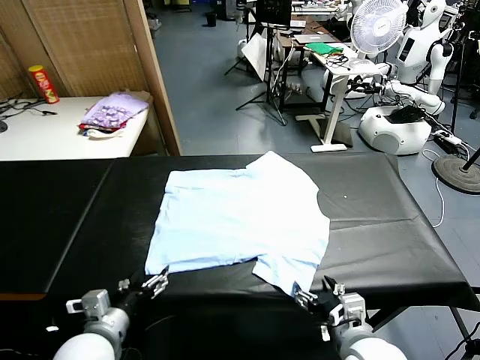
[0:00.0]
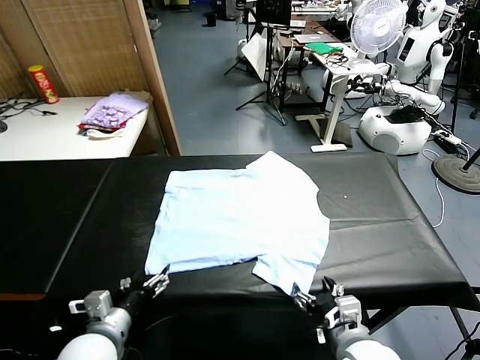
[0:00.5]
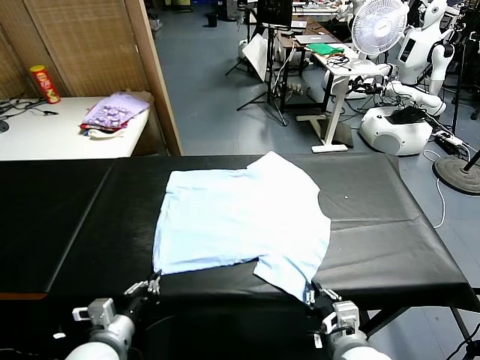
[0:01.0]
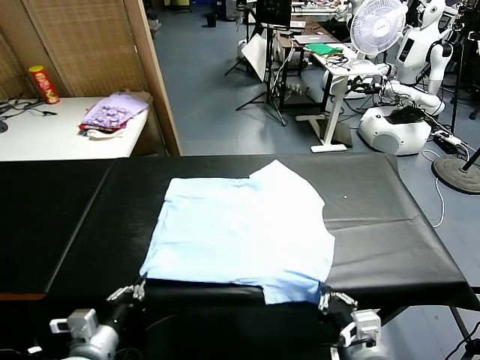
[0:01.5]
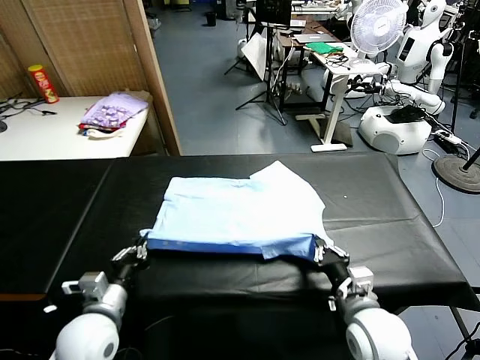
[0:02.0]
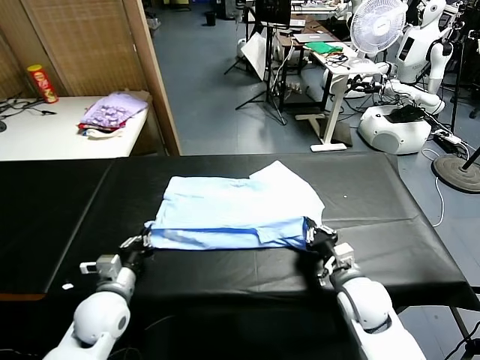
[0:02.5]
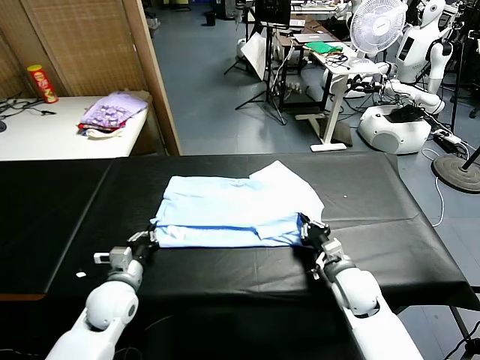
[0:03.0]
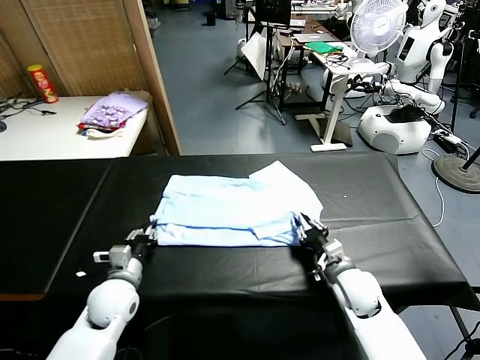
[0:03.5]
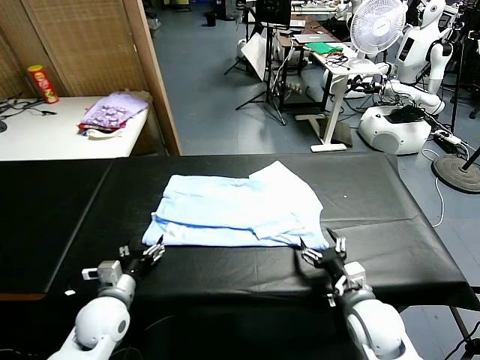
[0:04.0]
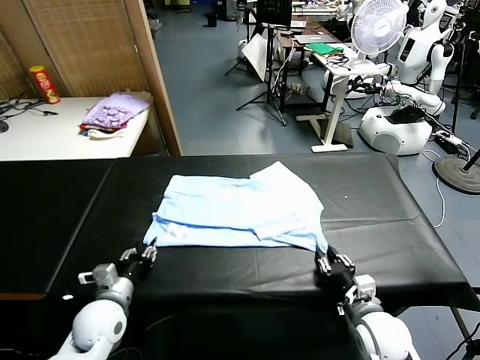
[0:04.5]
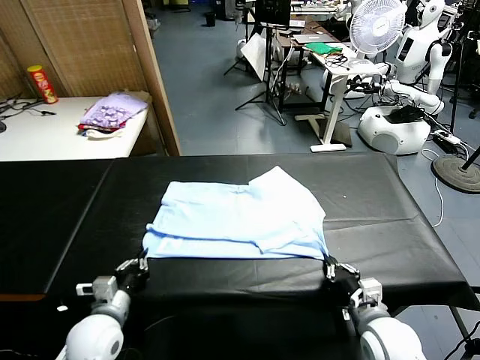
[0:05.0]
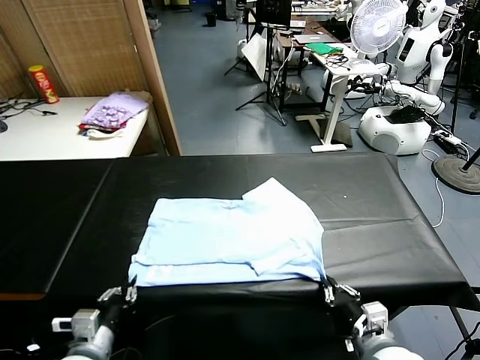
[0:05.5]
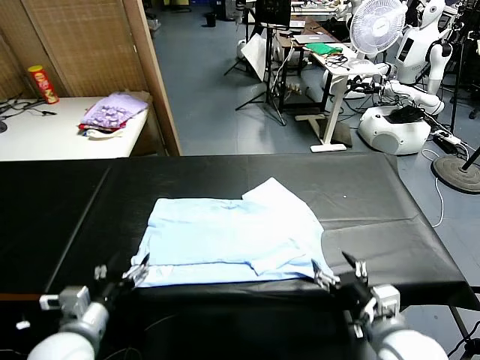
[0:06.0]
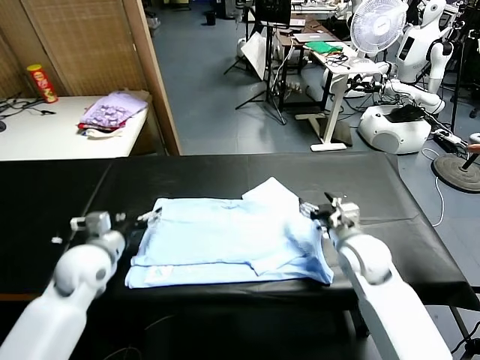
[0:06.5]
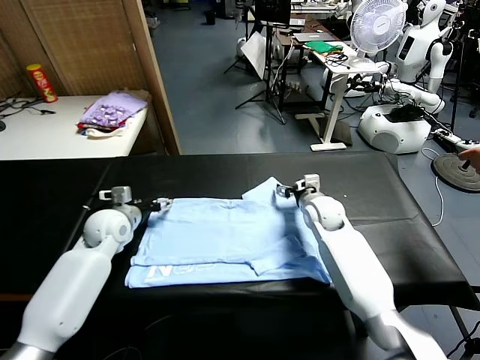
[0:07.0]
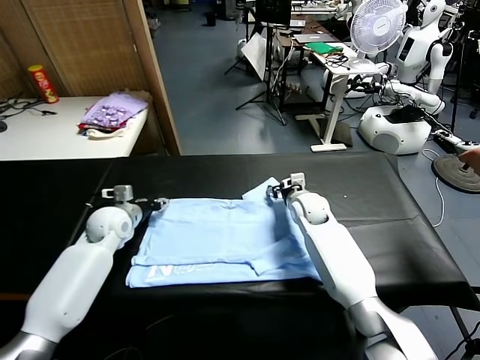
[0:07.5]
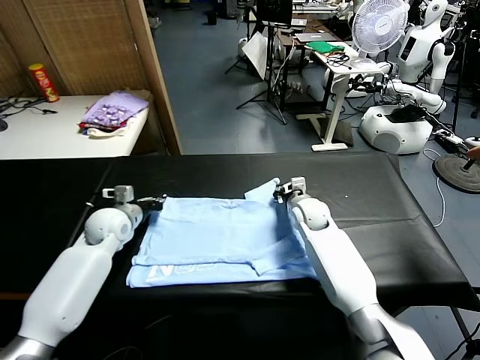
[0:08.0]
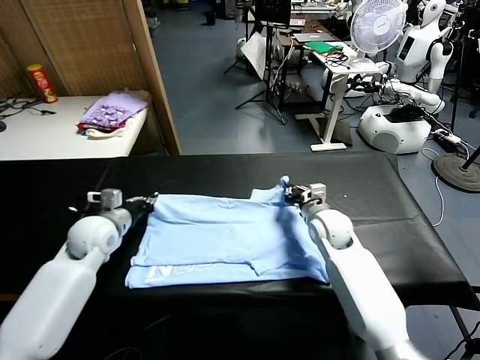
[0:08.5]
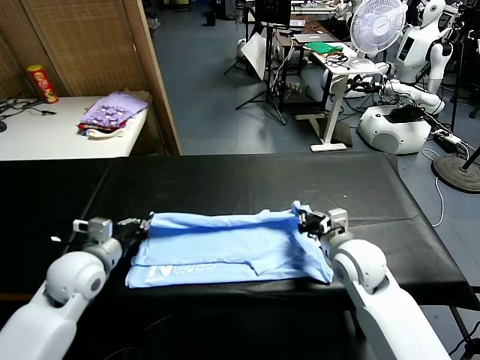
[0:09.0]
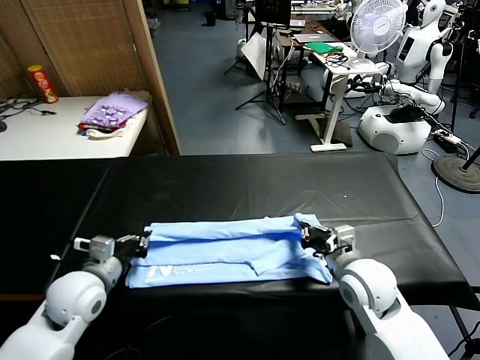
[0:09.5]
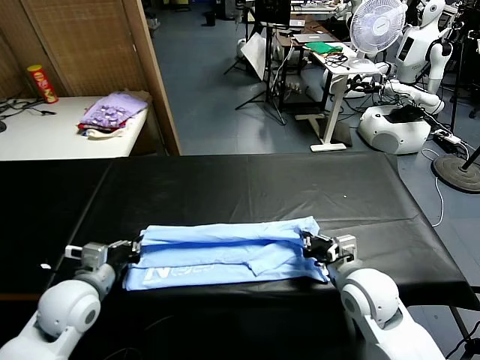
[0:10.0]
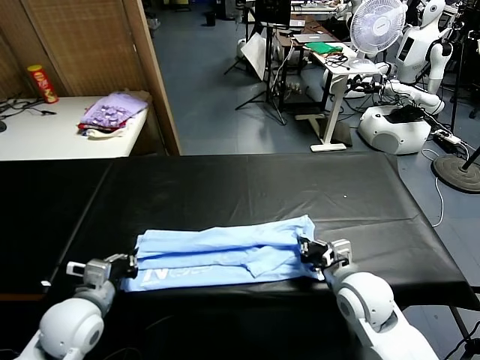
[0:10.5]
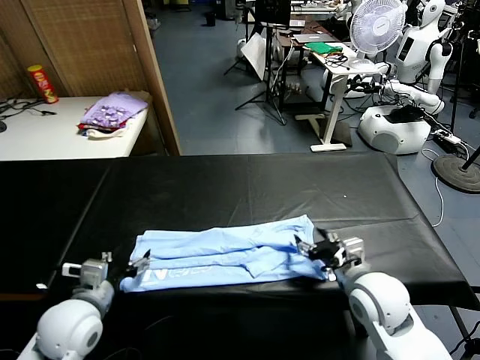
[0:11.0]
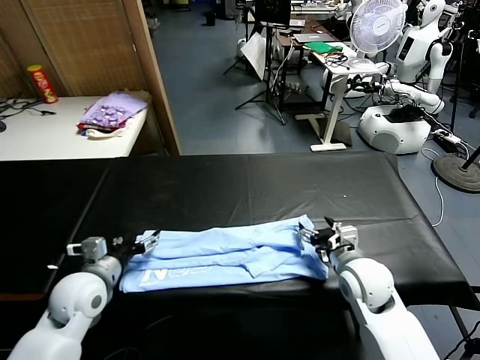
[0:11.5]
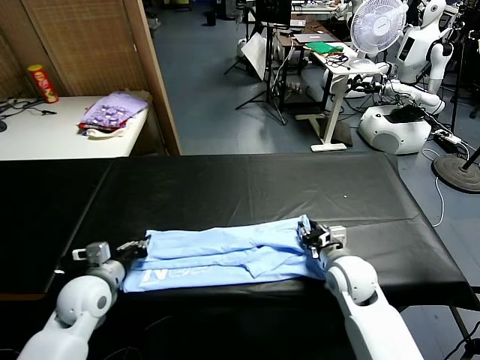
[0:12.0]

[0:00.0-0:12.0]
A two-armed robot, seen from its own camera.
Task of the whole recording: fold and organize the clothes.
Step, 0:00.0 to 0:01.0: use both grippers simultaneously to clamp the lower edge of the clothing fabric.
Step, 0:01.5 to 0:03.5: use both grippers to drag the lower edge of the fabric forward and fold it over the upper edge.
Step, 0:04.0 to 0:05.5: Drag the clothes downward with both gripper.
Step, 0:06.0 to 0:07.5: use both grippers simultaneously to clamp the upper edge of the clothing fabric.
Step, 0:08.0 to 0:10.5: use both grippers to drag the upper edge of the fabric backward and fold it over the lower edge.
0:02.0 to 0:04.0: The right gripper moves some 5 cm, and opens its fingers. Meanwhile the left gripper opens up.
0:04.0 to 0:06.0: The right gripper is displaced upward by some 10 cm, and closes, then opens again. Meanwhile the left gripper goes some 10 cm upward and backward, and closes, then opens again.
0:06.0 to 0:08.0: Both grippers travel together forward, approximately 25 cm. The left gripper closes. The right gripper closes.
0:08.0 to 0:10.0: The grippers both shift backward by approximately 20 cm.
0:10.0 to 0:12.0: The left gripper travels downward by some 5 cm, and opens, then closes once more; the right gripper goes some 10 cm downward and forward, and opens, then closes once more.

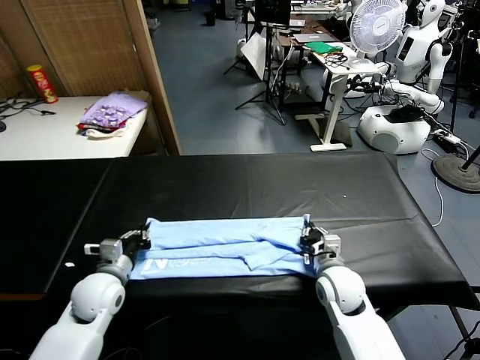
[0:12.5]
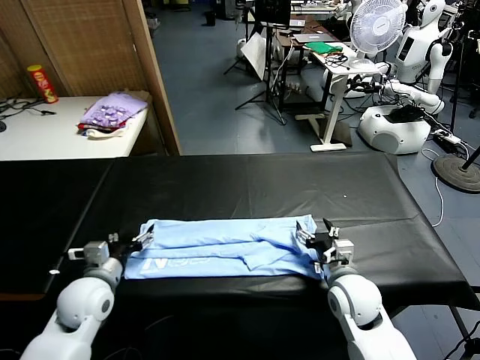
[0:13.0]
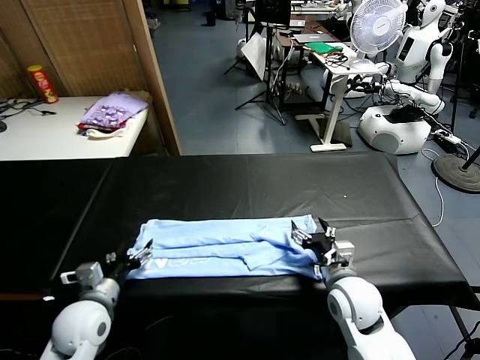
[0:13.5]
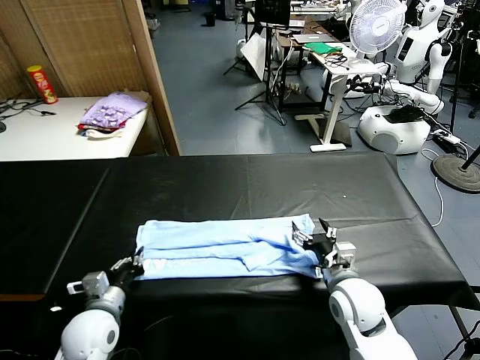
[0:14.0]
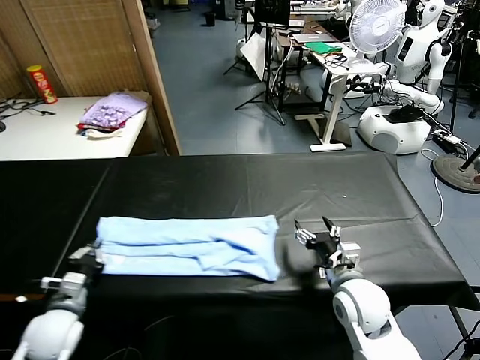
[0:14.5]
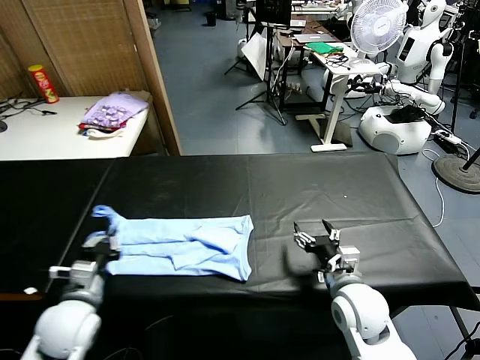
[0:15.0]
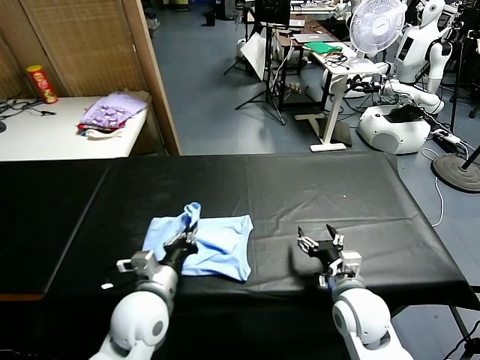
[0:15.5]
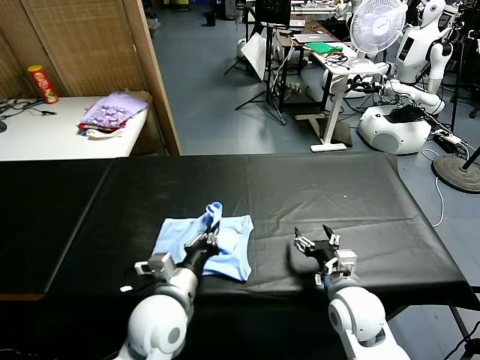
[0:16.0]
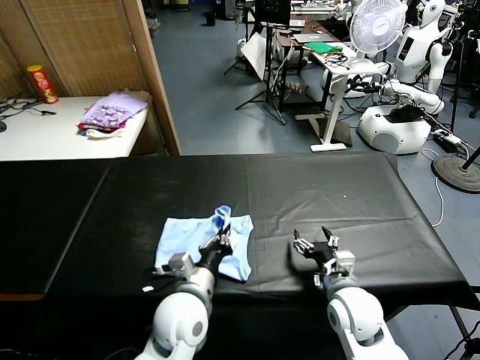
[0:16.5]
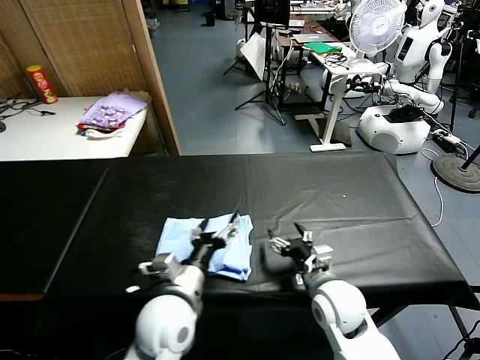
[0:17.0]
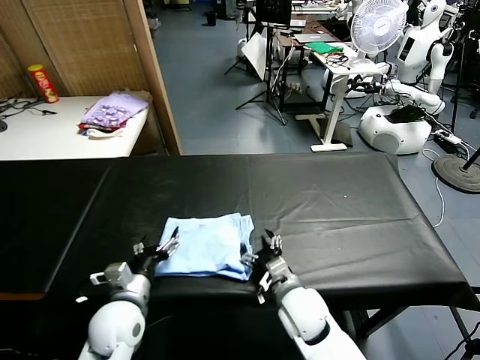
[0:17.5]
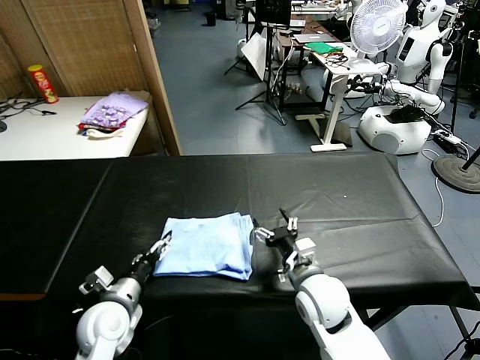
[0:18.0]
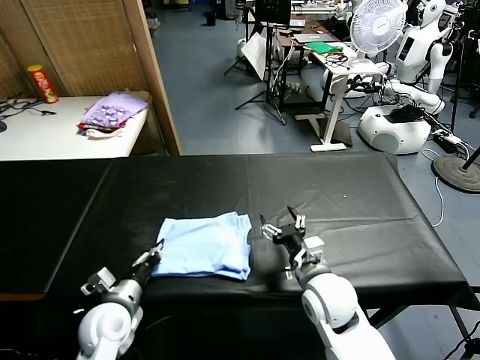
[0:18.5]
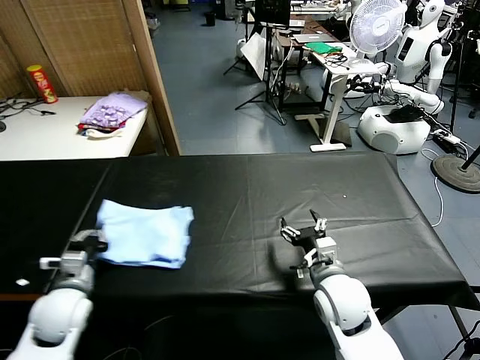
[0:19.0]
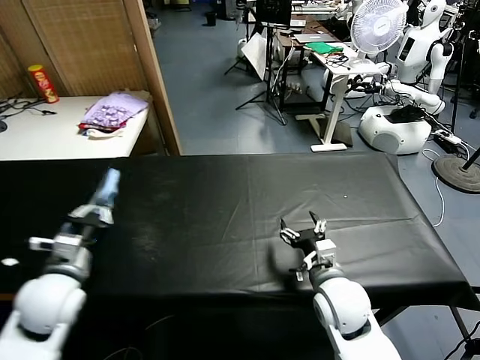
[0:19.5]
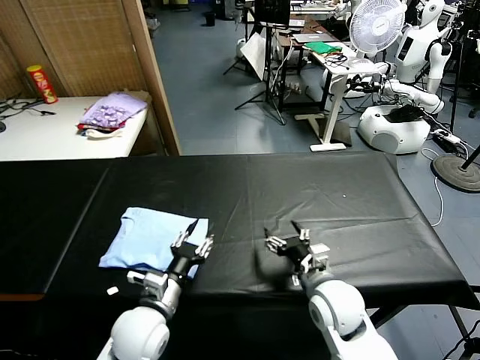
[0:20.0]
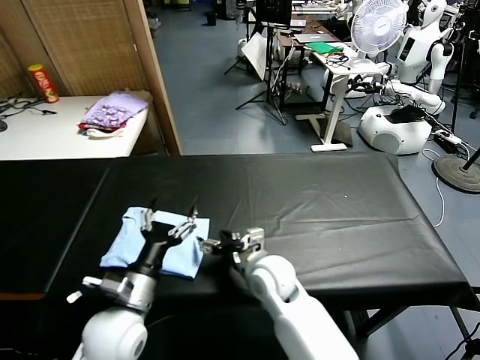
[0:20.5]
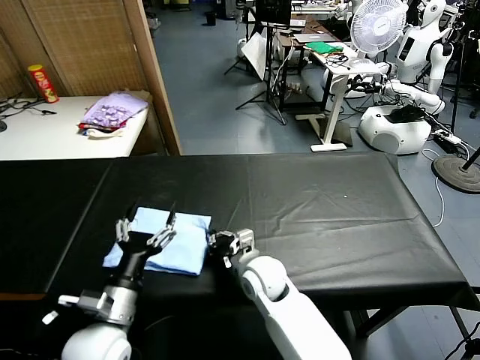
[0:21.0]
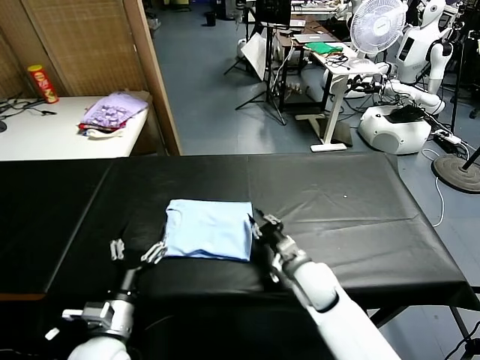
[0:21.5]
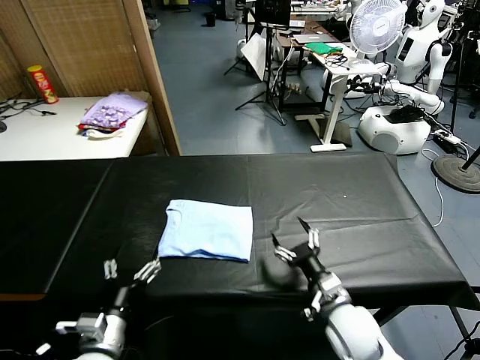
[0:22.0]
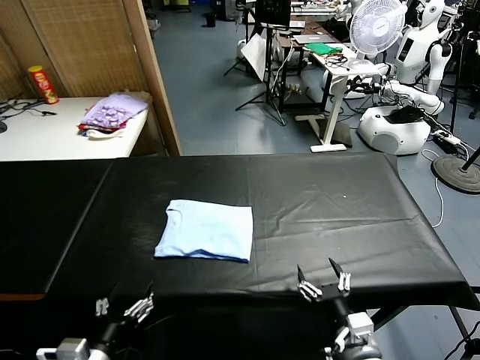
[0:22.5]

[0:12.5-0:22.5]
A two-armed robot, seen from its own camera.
Task of the whole recording: fold and organize the clothes.
Step, 0:12.5 to 0:14.0: use the left gripper to clamp the left edge of the fabric.
Step, 0:14.5 to 0:16.5: use the left gripper to drag the left edge of the fabric to the left and folds it over the right edge.
Step, 0:17.0 to 0:19.5: Flip the folded clothes over with left gripper.
Step, 0:20.0 to 0:21.5: Drag the clothes to the center of the table.
0:12.5 to 0:14.5: The right gripper ends up roughly 5 cm from where it was, and opens its fingers; the left gripper heads to the left and backward, covering approximately 10 cm, and opens, then closes once more.
0:14.5 to 0:16.5: The left gripper goes roughly 30 cm to the right.
0:16.5 to 0:18.5: The right gripper heads to the left, covering approximately 5 cm; the left gripper is displaced to the left by approximately 15 cm, and opens, then closes again.
0:18.5 to 0:20.5: The left gripper is displaced upward and to the right by about 10 cm, and opens its fingers; the right gripper is displaced to the left by some 10 cm.
0:20.5 to 0:22.5: The right gripper is displaced backward and to the right by about 25 cm, and closes and opens again. The left gripper heads backward and to the left, covering about 15 cm.

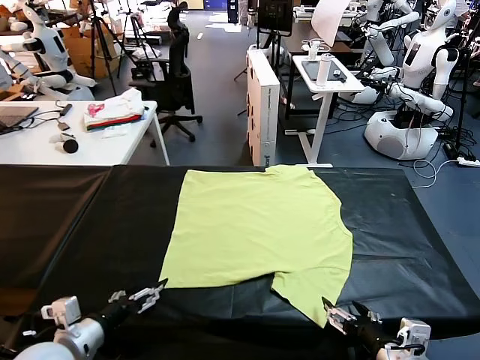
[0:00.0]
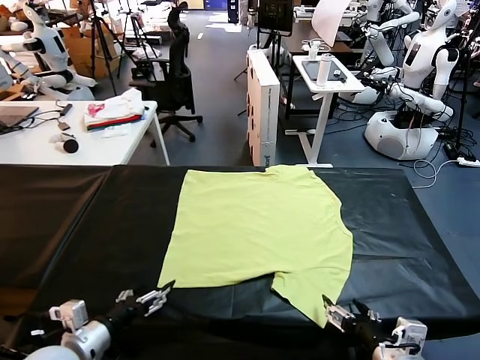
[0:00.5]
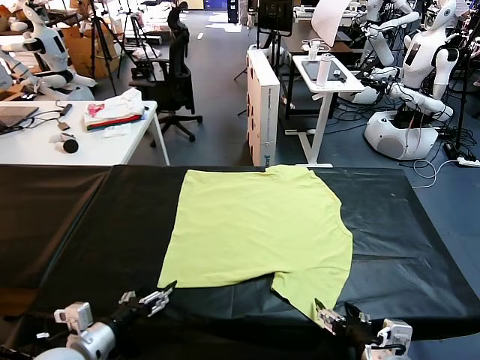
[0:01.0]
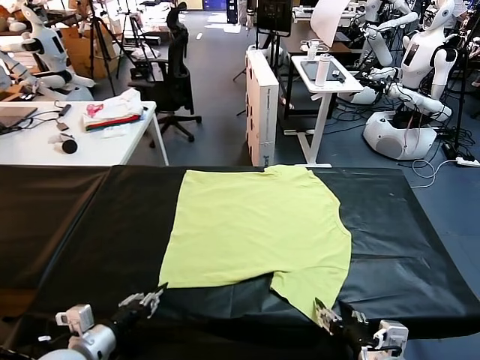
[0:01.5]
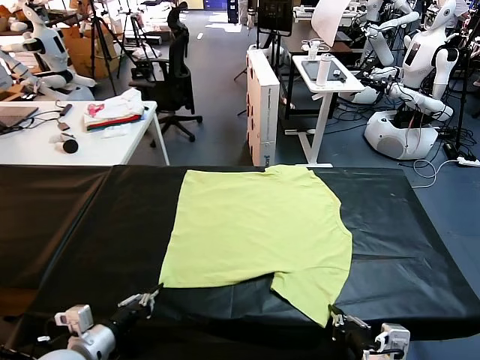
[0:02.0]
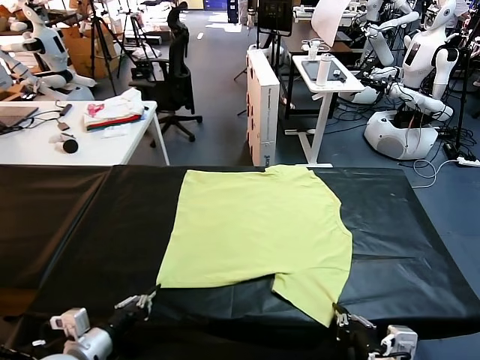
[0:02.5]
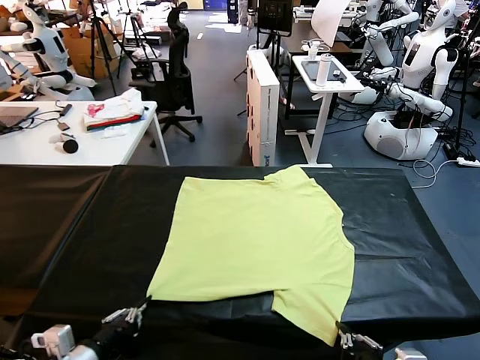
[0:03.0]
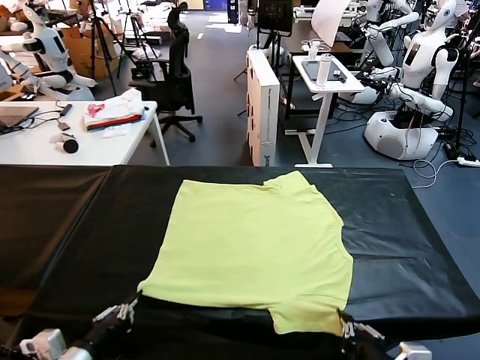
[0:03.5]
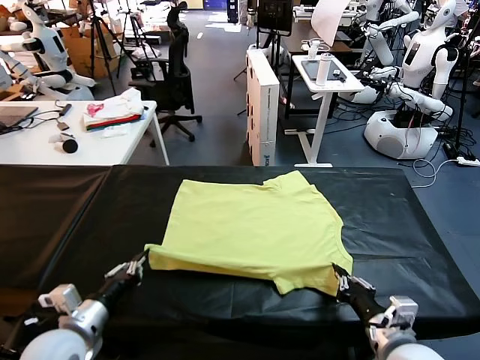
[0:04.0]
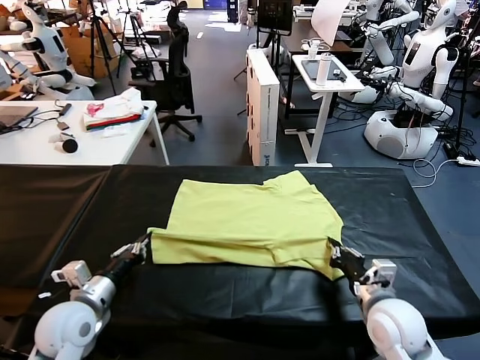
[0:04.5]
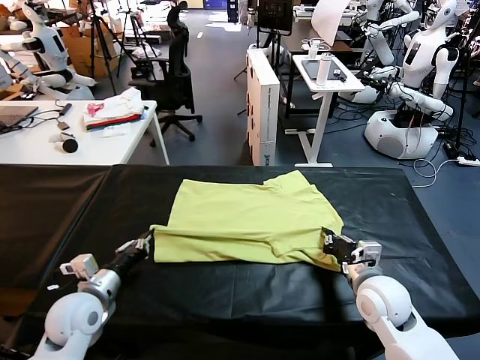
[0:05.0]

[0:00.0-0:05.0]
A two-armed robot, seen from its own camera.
Task of the whole recording: fold and organize the clothes.
Step, 0:00.0 to 0:02.5: use both grippers simultaneously to clamp the lower edge of the clothing fabric.
0:02.5 to 0:05.0: The right gripper shifts approximately 20 cm forward. Meanwhile the left gripper shifts some 15 cm forward.
